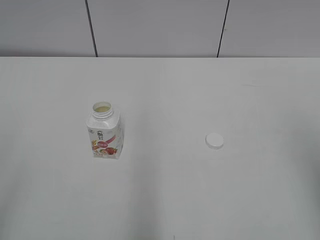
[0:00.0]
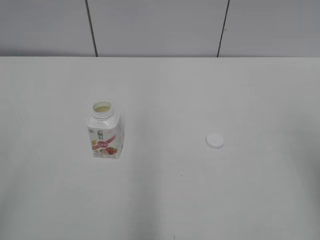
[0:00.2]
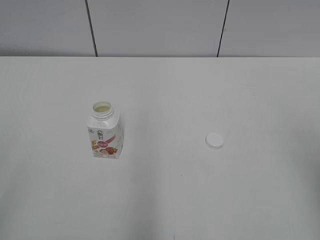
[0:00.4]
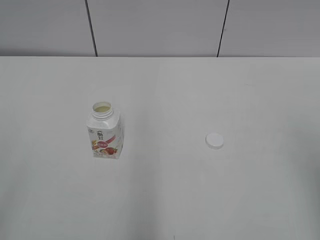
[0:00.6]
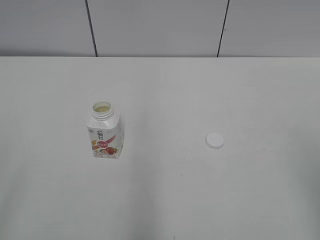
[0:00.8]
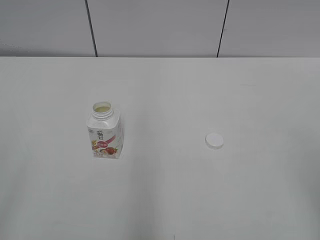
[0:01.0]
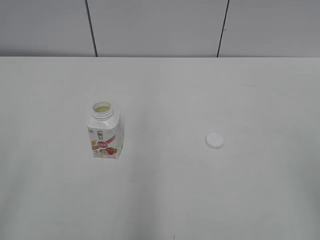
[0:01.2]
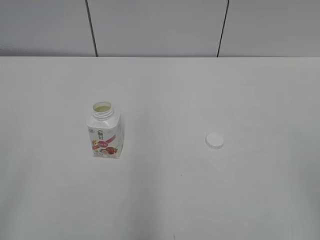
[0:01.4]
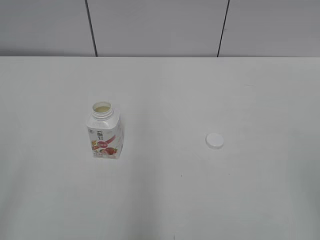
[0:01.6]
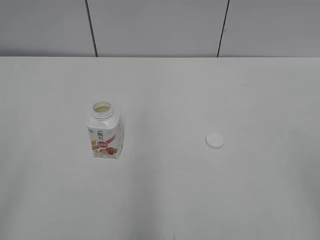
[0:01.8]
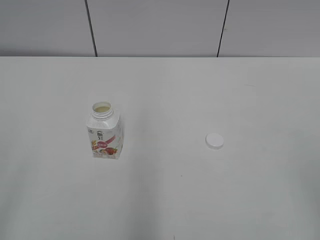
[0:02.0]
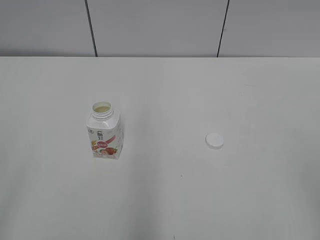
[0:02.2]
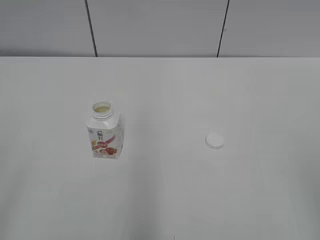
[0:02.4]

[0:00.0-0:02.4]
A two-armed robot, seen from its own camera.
0:01.2 to 0:02.4: Both grippers stay about where they are.

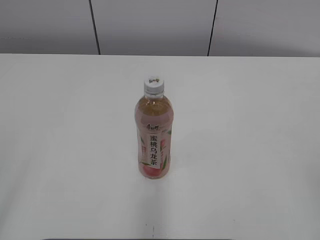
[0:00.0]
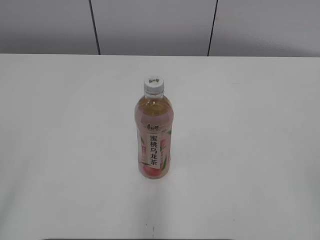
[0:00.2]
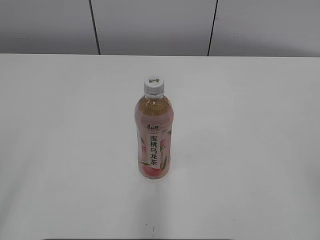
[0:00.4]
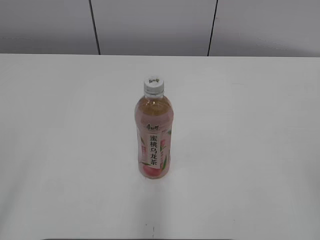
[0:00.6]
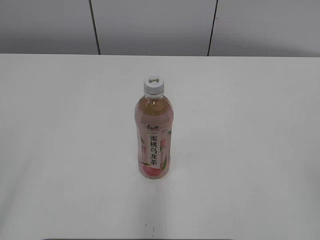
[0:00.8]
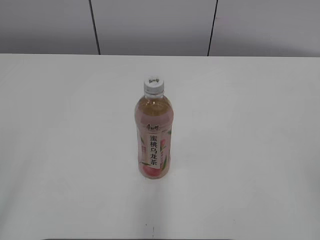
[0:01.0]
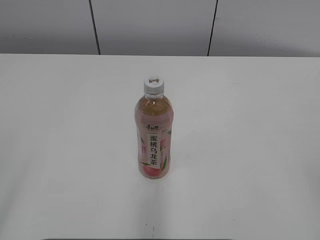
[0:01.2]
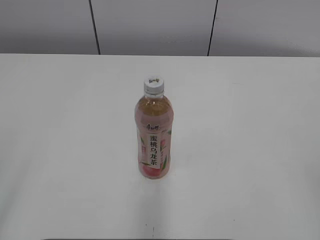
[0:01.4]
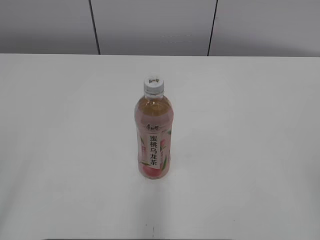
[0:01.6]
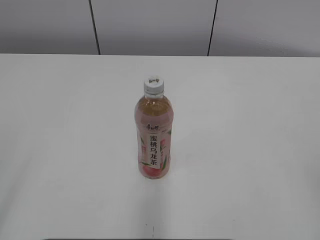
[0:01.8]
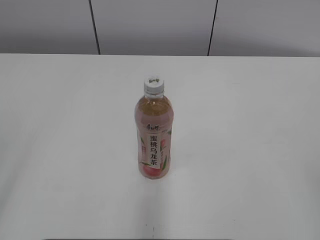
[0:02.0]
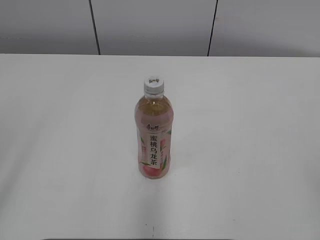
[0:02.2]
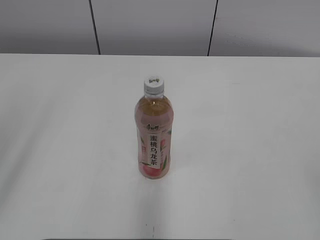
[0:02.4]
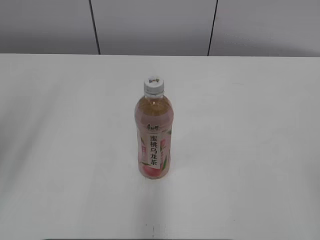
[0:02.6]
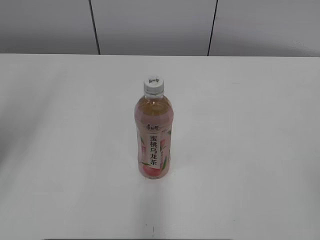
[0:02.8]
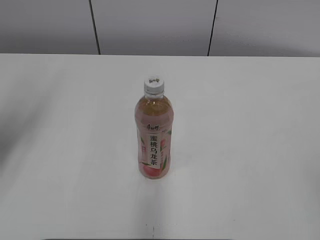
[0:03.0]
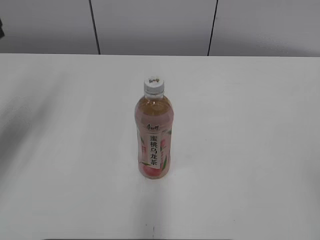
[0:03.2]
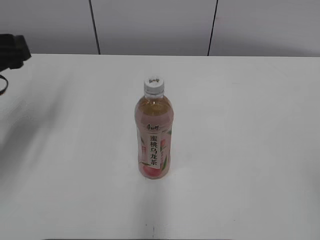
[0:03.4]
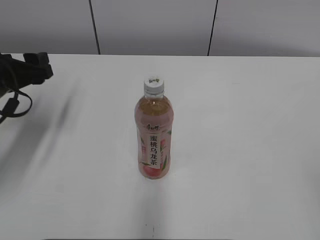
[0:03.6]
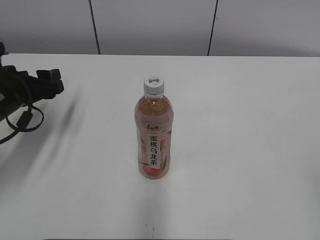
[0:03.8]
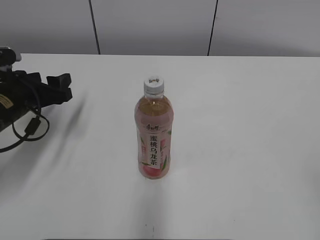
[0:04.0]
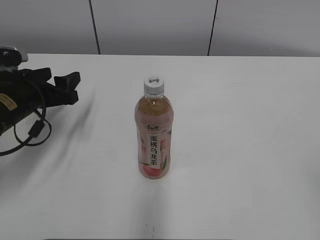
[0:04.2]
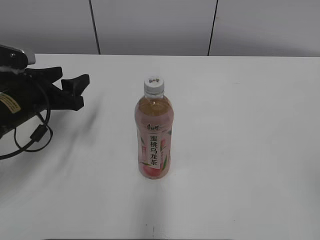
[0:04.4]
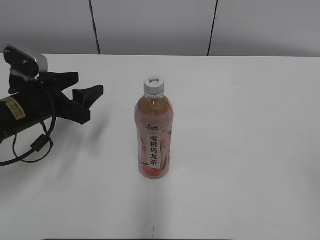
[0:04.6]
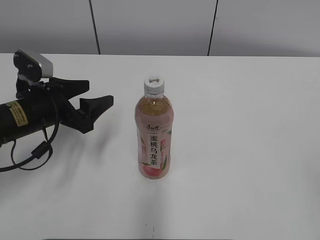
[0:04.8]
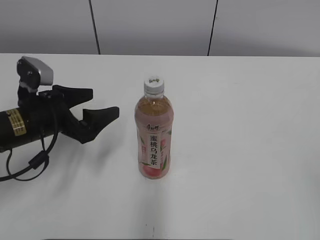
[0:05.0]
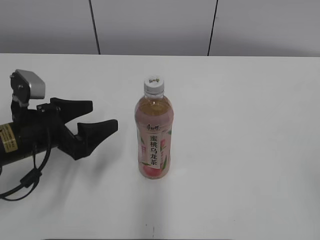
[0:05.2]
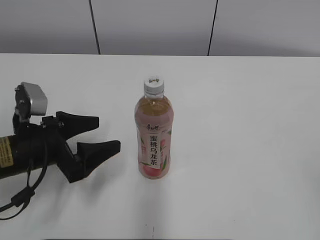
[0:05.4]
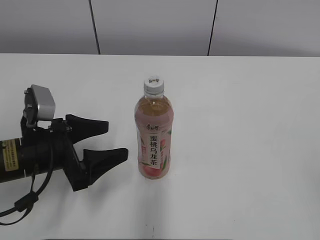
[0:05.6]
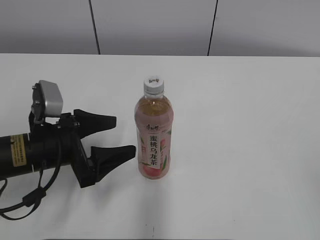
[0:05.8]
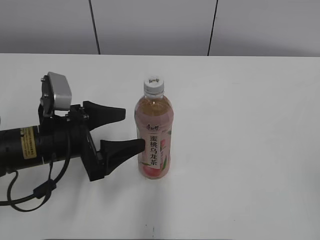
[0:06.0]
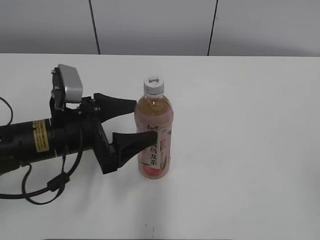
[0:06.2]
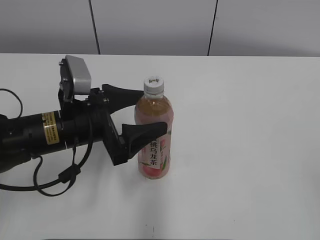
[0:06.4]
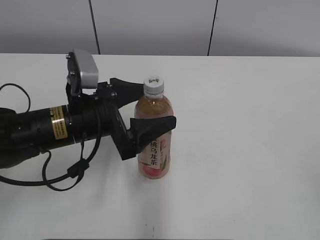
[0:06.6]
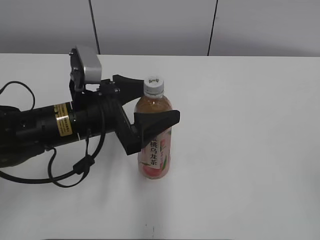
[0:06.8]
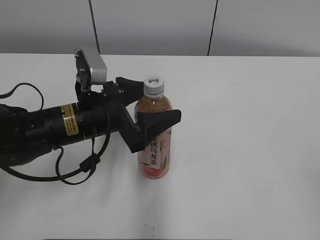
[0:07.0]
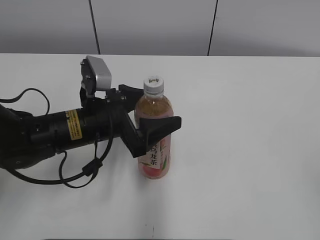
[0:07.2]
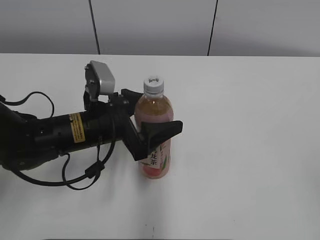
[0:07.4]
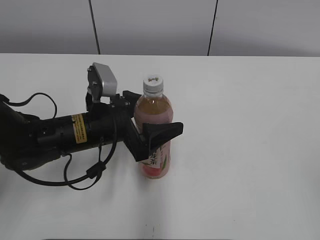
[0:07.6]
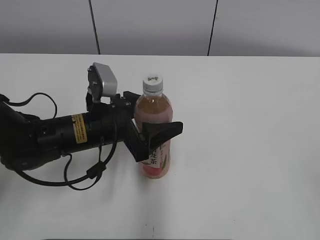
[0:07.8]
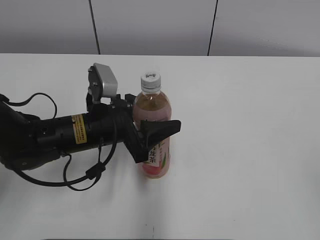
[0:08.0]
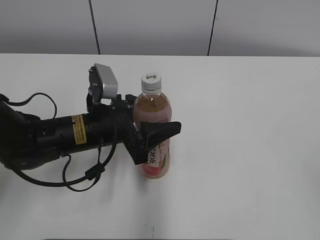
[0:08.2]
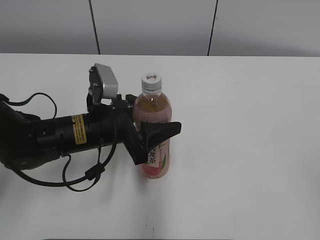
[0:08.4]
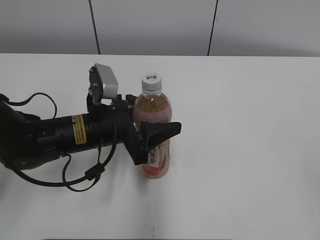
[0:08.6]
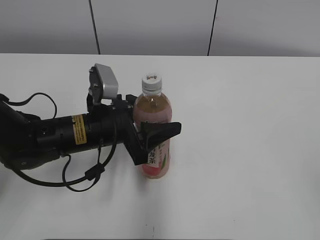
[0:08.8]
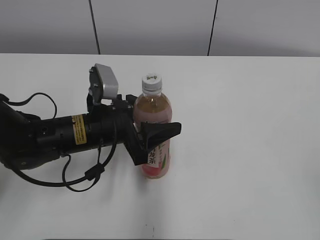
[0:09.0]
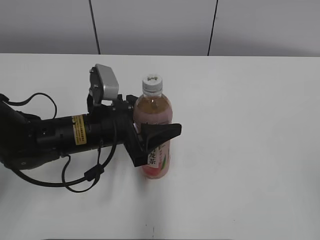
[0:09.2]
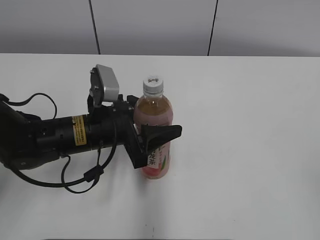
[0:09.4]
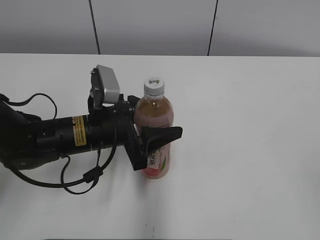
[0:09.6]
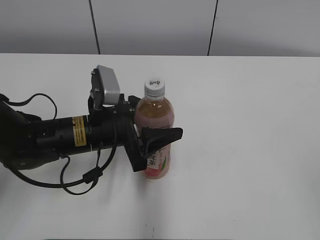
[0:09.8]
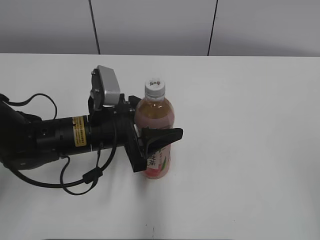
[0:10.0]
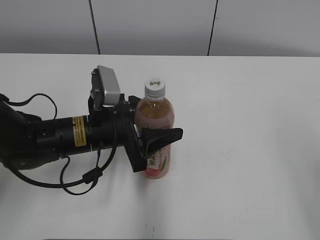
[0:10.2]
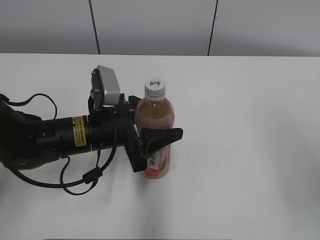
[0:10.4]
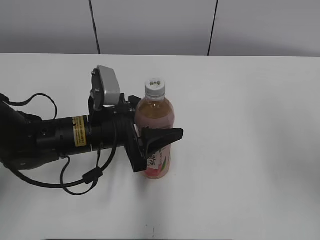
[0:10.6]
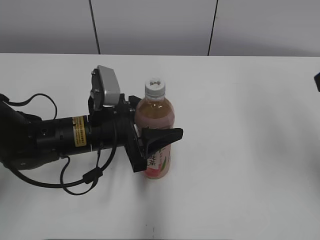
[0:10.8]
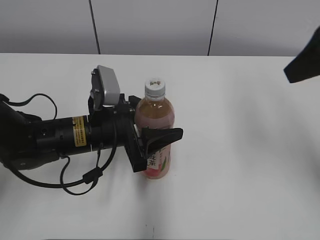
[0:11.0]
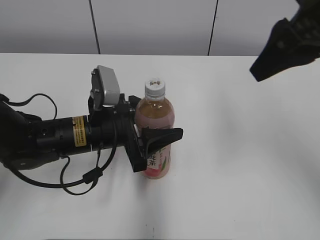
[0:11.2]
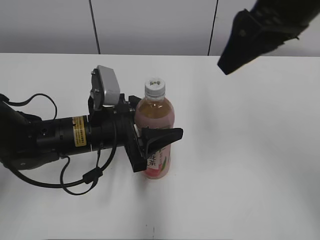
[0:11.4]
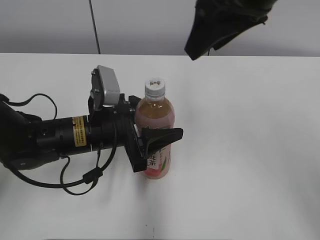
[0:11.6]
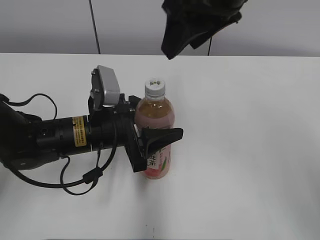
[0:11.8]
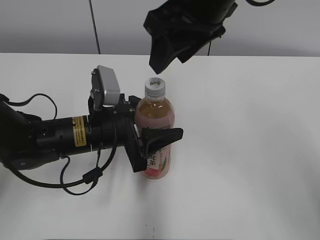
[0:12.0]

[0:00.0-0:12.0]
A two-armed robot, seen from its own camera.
Step, 0:00.0 to 0:08.4: Grasp the bottle and move it to the center of the table with the left gripper.
0:01.6 to 0:03.0: The left gripper is displaced forward by approximately 25 cm.
0:03.0 to 0:04.4: The left gripper moves downward, forward and to the right, some 20 cm.
0:04.4 to 0:06.0: The left gripper heads backward and to the right, covering about 10 cm, and opens.
0:06.0 to 0:07.6: The left gripper travels to the right by about 5 cm.
0:07.6 to 0:09.0: The left gripper closes.
0:09.0 to 0:10.4: The right gripper is displaced forward by some 10 cm.
0:10.4 to 0:12.0: The right gripper moves to the left and forward, roughly 30 cm.

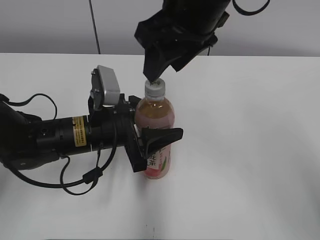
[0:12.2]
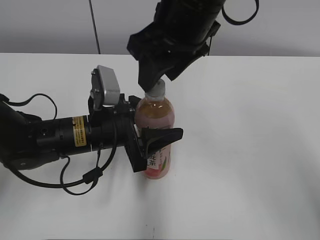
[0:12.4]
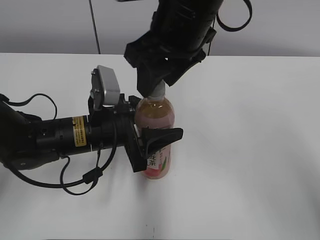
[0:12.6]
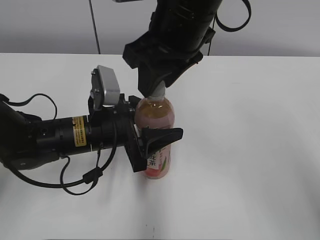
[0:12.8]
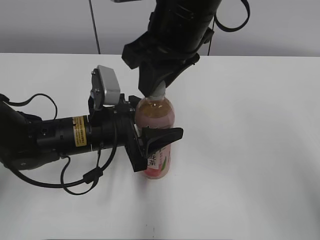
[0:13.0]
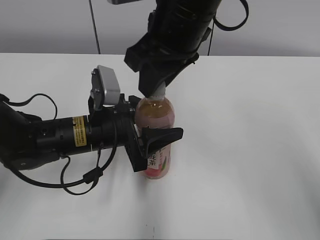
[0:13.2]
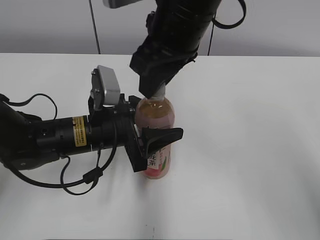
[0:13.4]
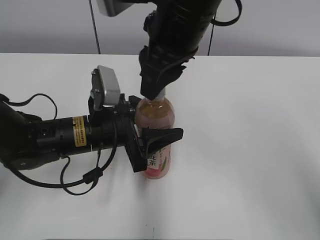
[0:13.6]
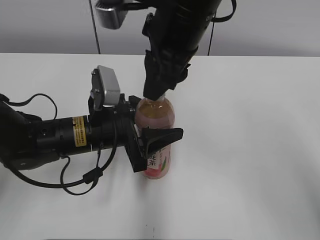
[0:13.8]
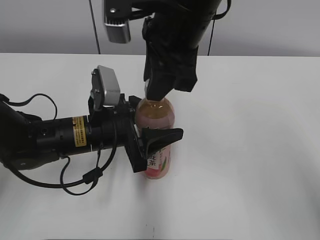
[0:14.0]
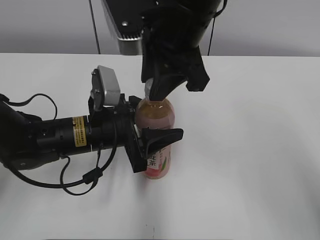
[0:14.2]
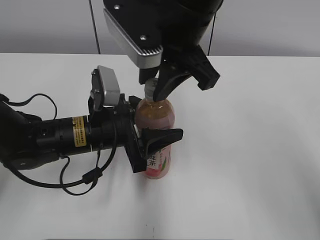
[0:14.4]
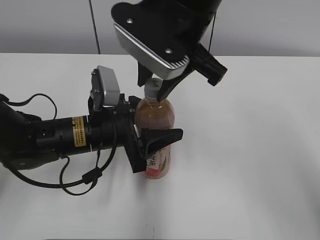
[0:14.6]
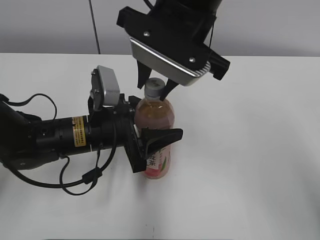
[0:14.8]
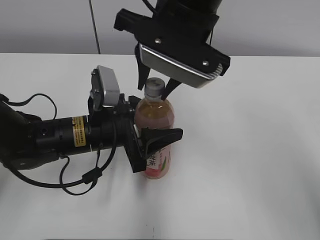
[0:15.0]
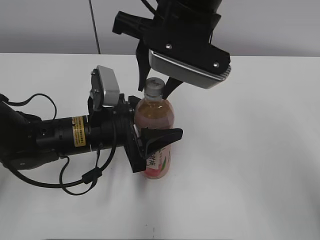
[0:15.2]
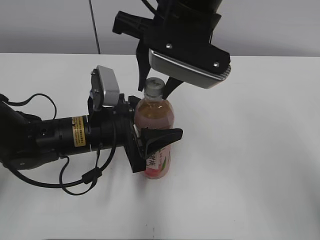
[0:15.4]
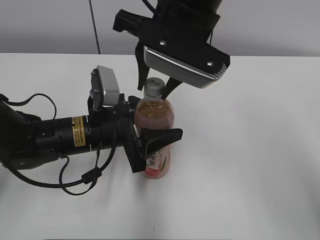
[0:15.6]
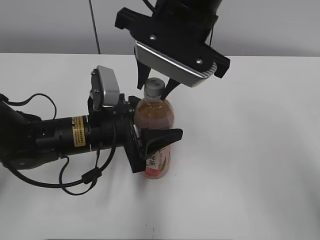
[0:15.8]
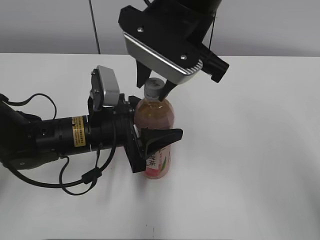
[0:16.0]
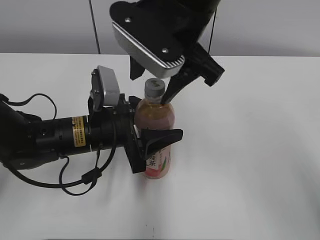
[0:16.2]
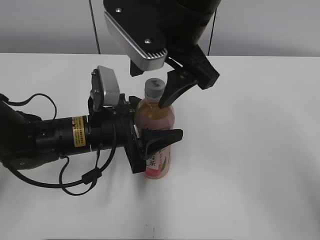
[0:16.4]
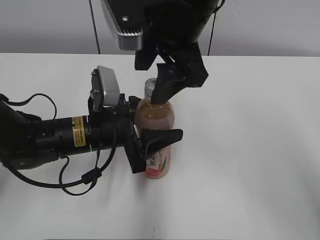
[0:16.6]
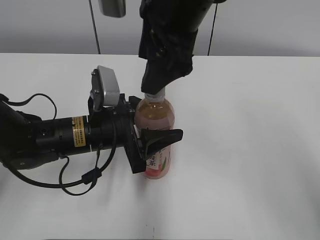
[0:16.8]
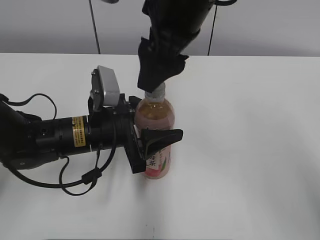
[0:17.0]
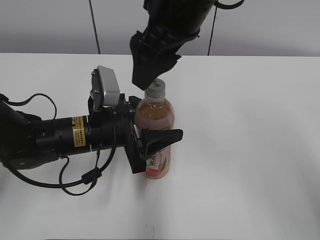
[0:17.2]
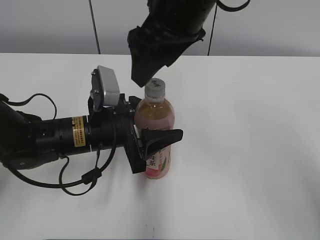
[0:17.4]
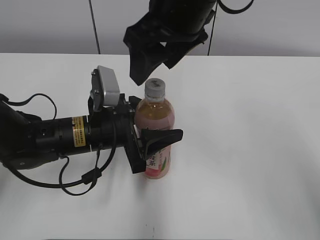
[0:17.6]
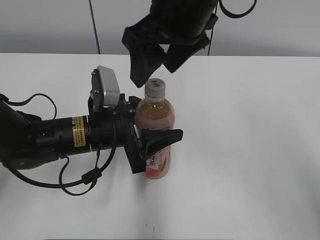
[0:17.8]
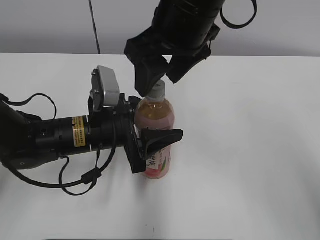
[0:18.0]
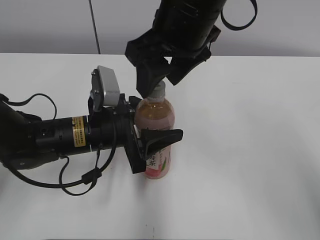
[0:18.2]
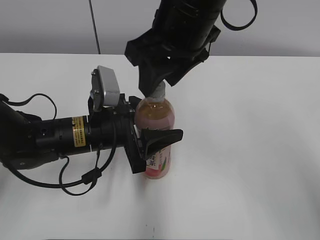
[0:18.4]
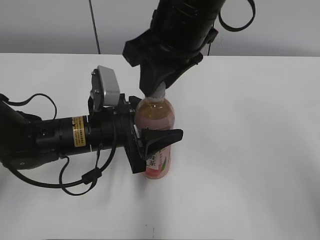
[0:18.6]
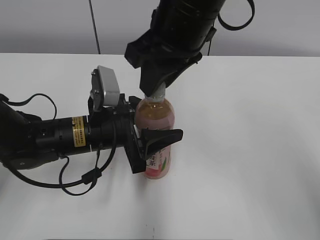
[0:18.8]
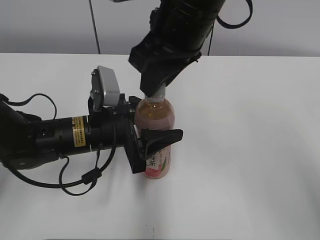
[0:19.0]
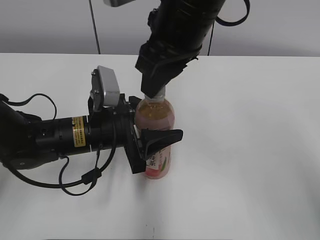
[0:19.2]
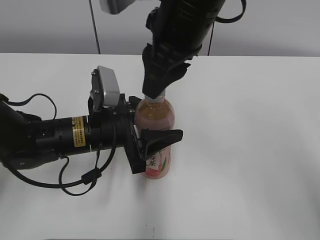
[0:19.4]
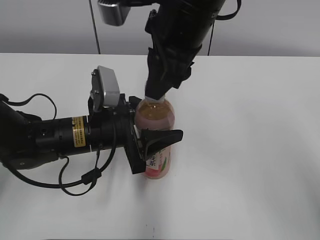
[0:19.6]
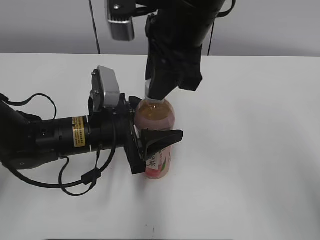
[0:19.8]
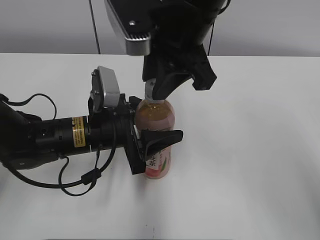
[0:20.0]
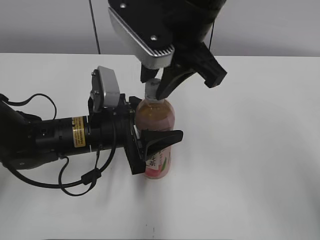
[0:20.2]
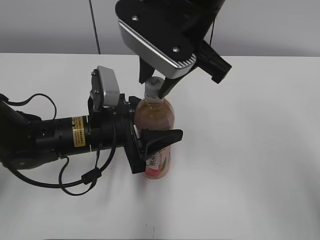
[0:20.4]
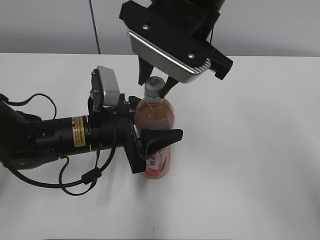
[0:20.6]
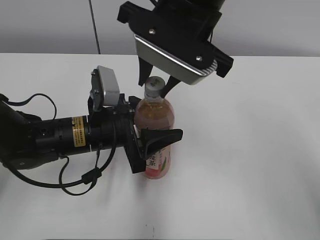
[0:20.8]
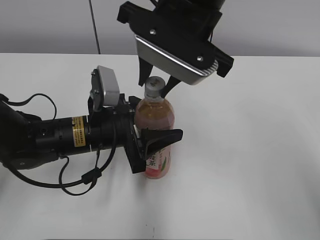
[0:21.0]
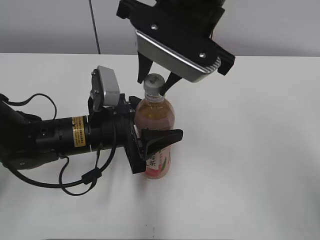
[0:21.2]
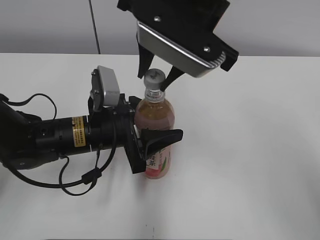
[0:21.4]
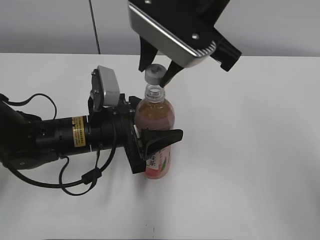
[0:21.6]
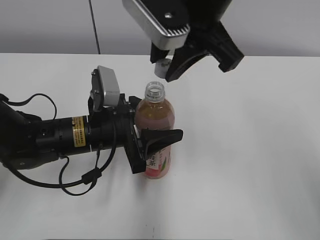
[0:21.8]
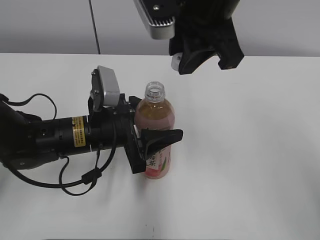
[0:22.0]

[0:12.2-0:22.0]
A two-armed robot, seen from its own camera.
Step, 0:12.2 to 0:21.2: Unscrew the bottle cap with the right gripper while holding the bottle with the left gripper.
0:12.2 to 0:13.6: The right gripper closes its fingers.
0:15.0 to 0:16.4: The right gripper opens its fingers.
0:17.8 to 0:19.2: The right gripper closes.
